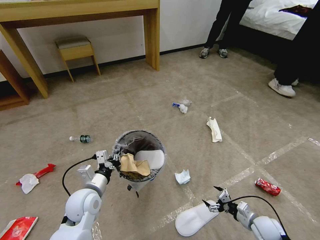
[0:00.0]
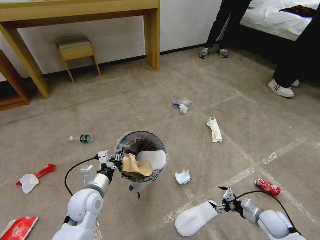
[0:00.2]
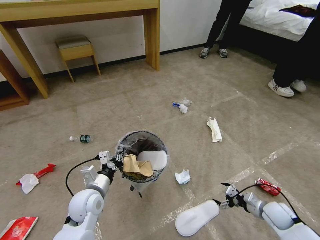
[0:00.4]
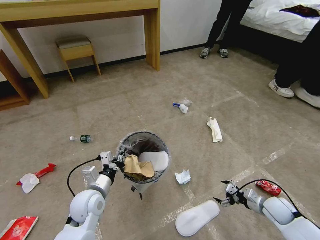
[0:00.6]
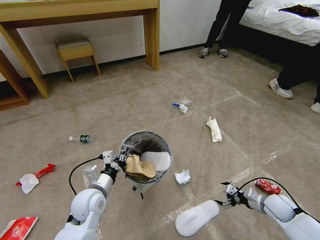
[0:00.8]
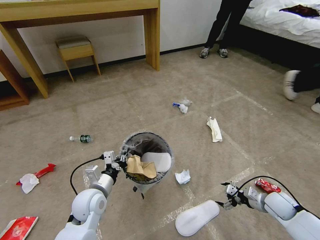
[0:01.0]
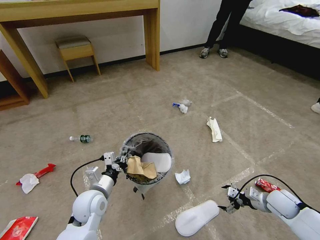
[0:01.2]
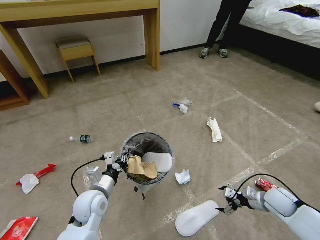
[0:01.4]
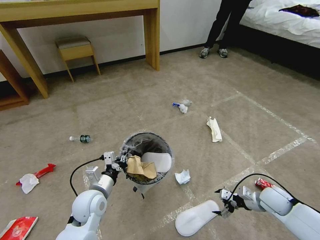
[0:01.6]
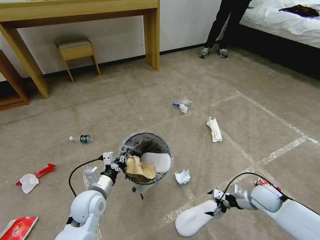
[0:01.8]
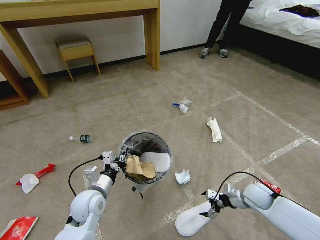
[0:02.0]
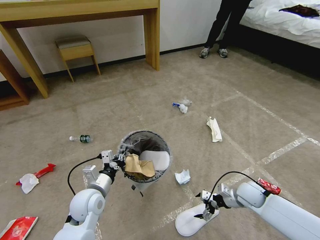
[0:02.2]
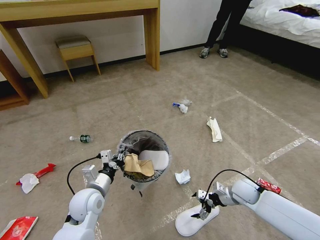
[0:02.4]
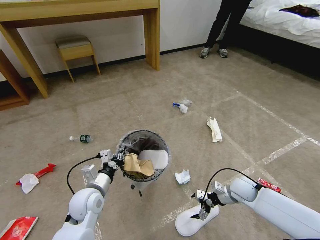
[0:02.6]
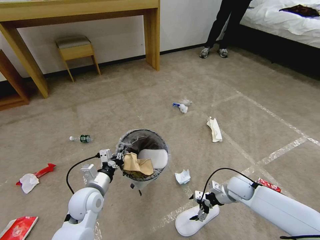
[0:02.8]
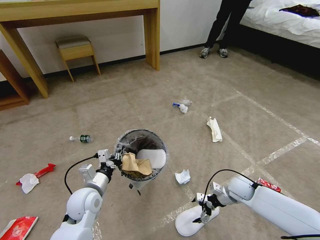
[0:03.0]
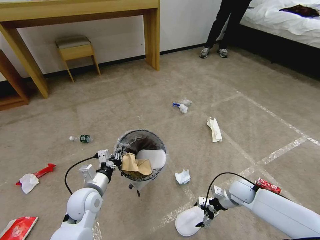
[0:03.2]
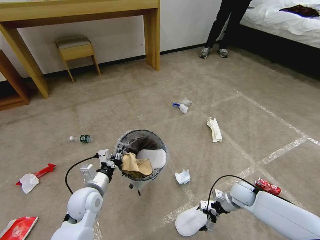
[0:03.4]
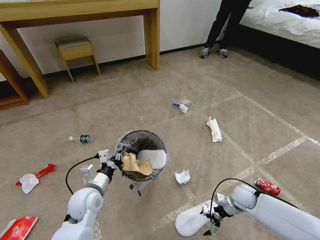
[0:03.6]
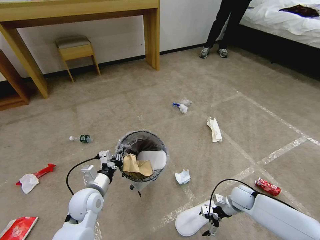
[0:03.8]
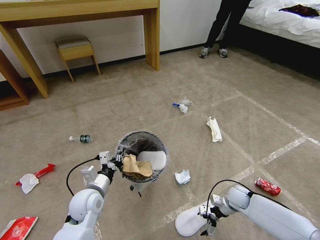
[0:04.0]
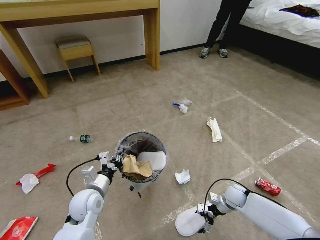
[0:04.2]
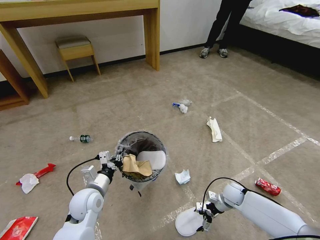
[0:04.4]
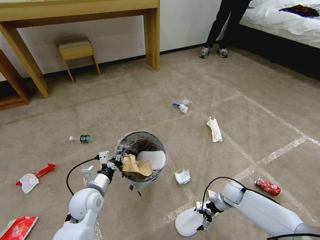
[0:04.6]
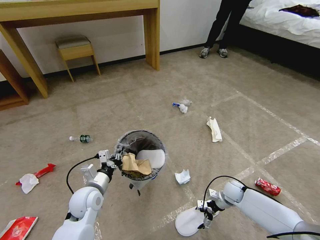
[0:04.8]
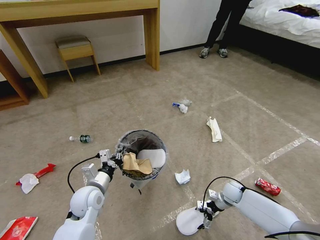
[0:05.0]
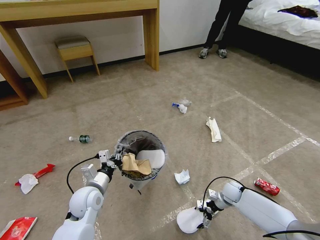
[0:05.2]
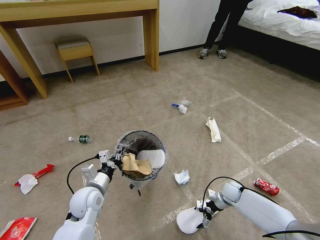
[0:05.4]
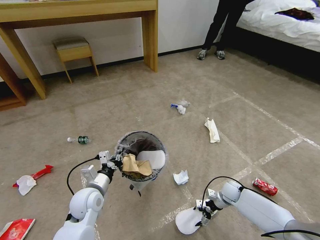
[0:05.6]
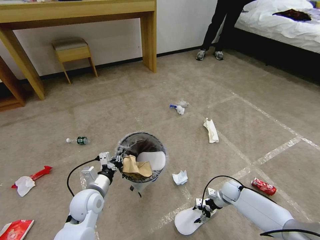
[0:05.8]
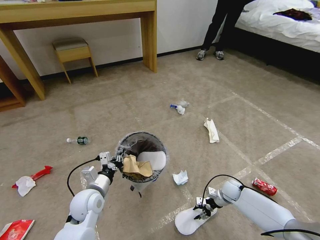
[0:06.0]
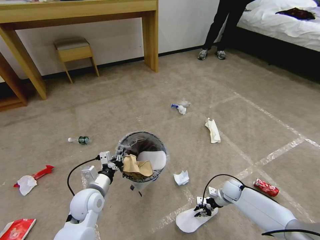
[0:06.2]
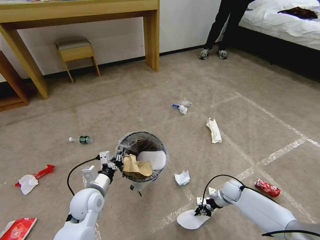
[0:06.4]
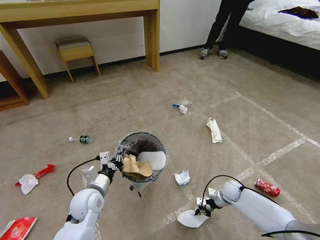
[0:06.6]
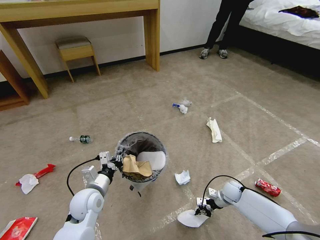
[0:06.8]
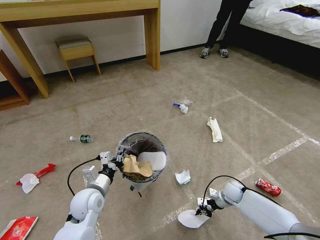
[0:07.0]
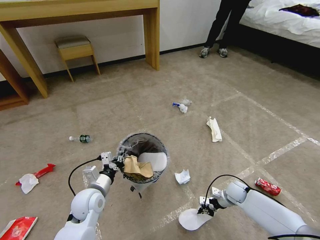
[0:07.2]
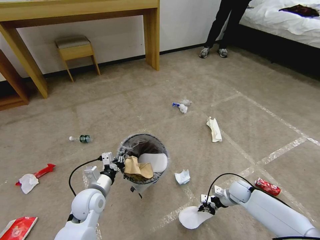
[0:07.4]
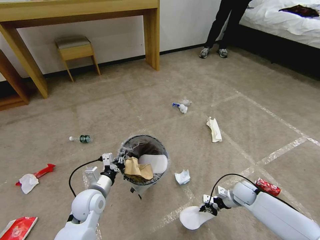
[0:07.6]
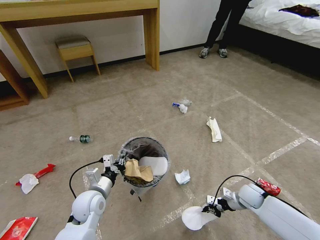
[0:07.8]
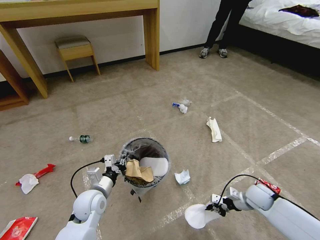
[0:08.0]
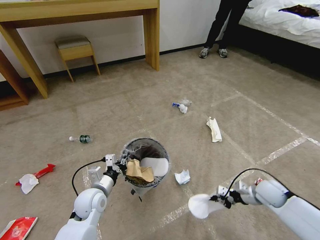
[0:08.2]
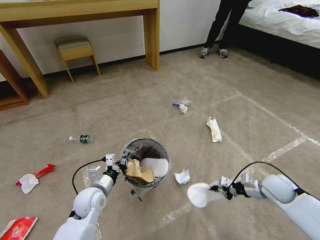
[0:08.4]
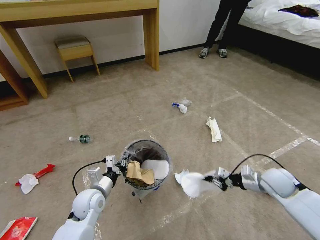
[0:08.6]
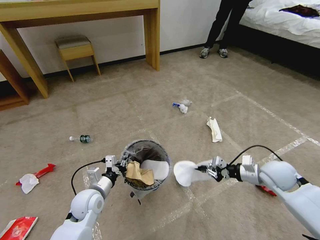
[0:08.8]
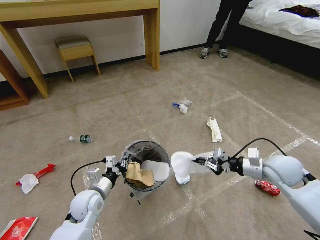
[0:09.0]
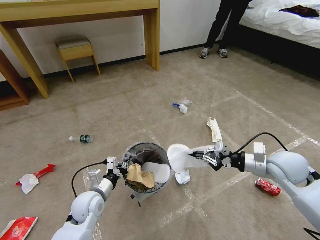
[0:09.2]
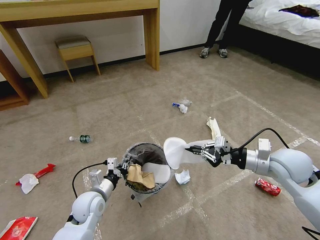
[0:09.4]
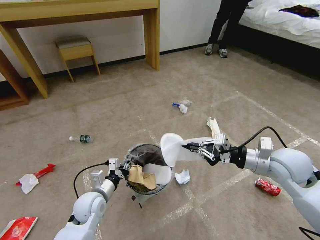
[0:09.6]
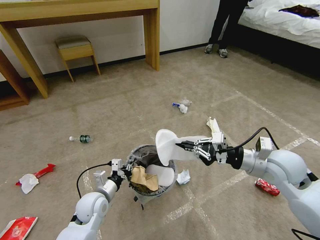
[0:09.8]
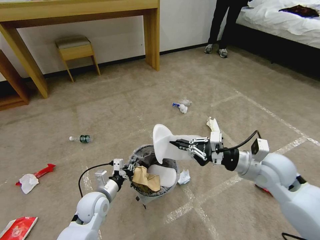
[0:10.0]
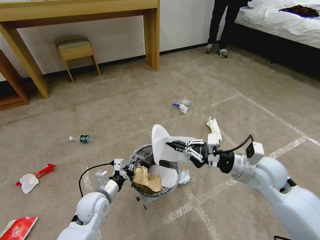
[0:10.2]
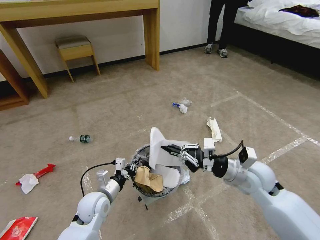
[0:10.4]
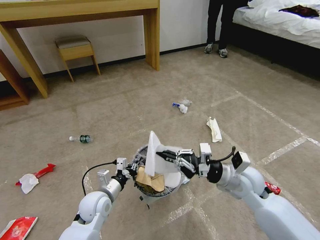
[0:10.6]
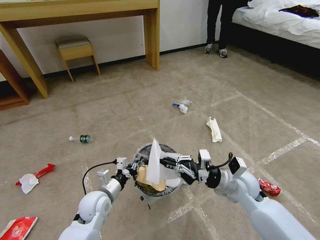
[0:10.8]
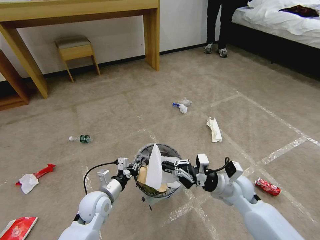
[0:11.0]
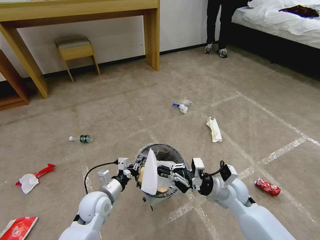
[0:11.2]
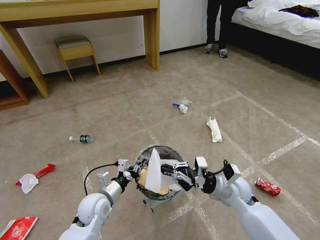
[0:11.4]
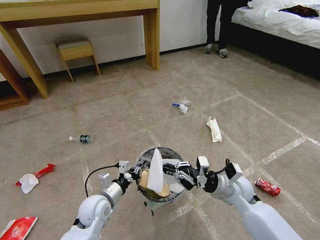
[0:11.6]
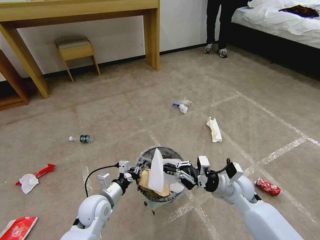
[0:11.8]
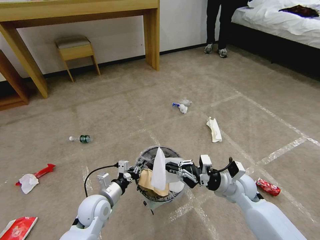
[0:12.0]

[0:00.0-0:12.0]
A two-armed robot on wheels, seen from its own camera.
Task of the whole recording: Pick up the trash bin and place the garbage on the floor into it.
0:00.0 to 0:01.6: The right gripper shifts roughly 10 cm upward and forward.
0:01.6 to 0:03.0: The right gripper goes some 10 cm to the left and forward.
0:03.0 to 0:04.4: The right gripper goes approximately 5 cm downward.
0:04.4 to 0:06.0: The right gripper closes.
0:06.0 to 0:07.6: The right gripper shifts approximately 5 cm upward, and closes.
0:07.6 to 0:09.0: The right gripper is displaced upward by some 25 cm.
0:09.0 to 0:10.4: The right gripper travels to the left by approximately 10 cm.
0:10.4 to 0:12.0: The right gripper shifts approximately 10 cm downward.

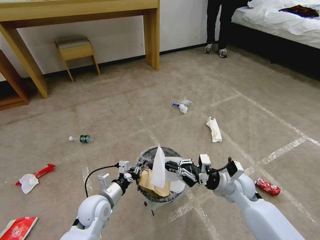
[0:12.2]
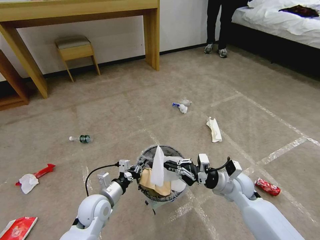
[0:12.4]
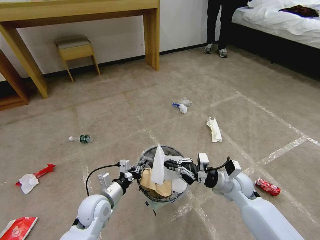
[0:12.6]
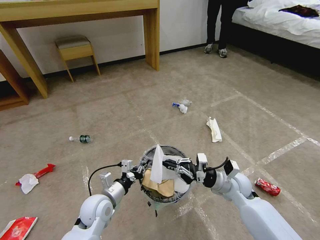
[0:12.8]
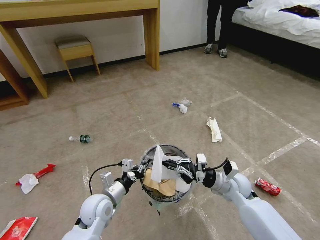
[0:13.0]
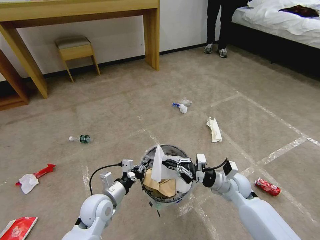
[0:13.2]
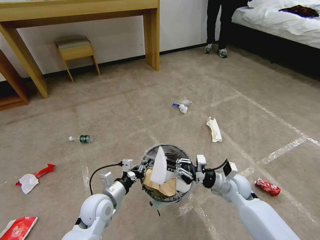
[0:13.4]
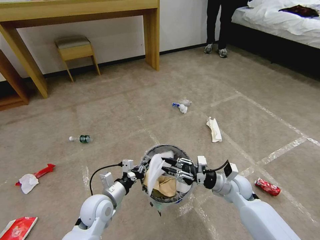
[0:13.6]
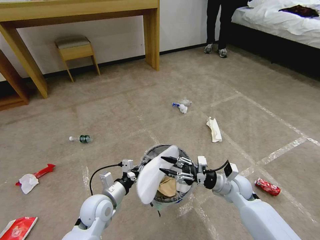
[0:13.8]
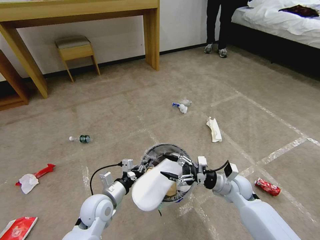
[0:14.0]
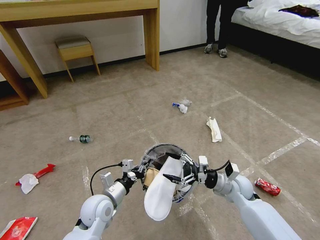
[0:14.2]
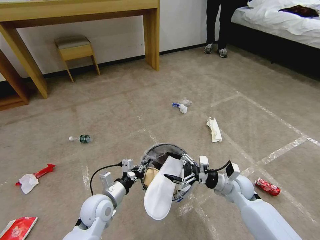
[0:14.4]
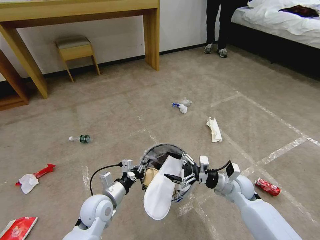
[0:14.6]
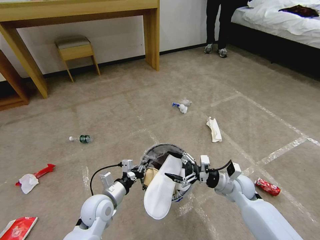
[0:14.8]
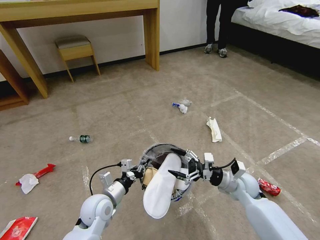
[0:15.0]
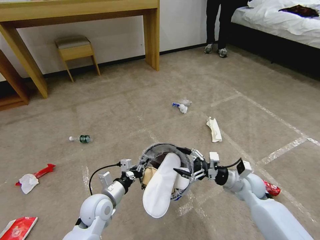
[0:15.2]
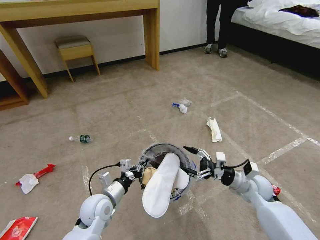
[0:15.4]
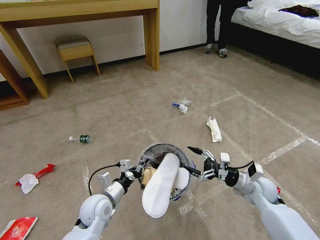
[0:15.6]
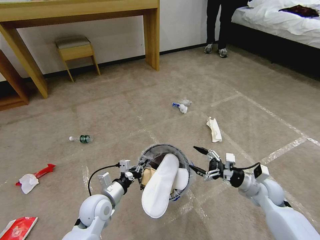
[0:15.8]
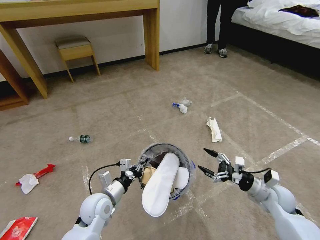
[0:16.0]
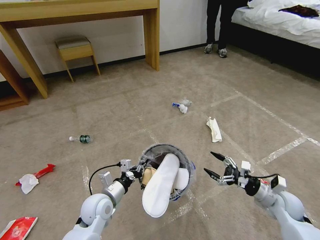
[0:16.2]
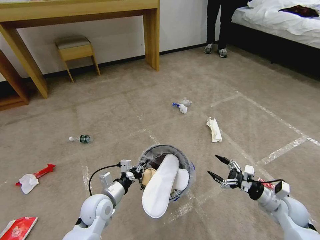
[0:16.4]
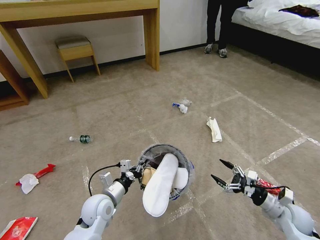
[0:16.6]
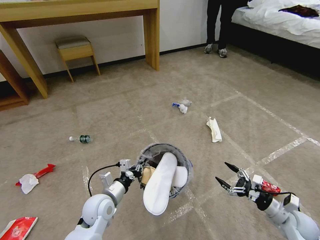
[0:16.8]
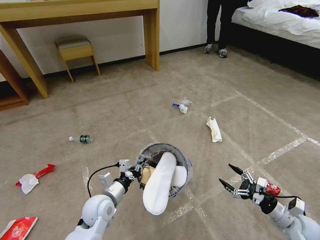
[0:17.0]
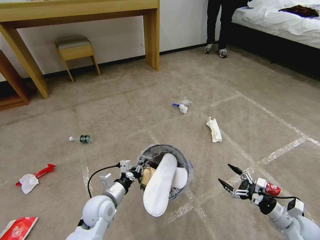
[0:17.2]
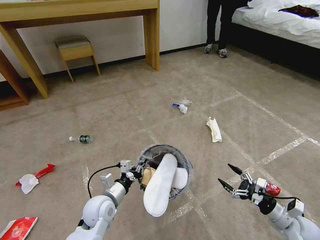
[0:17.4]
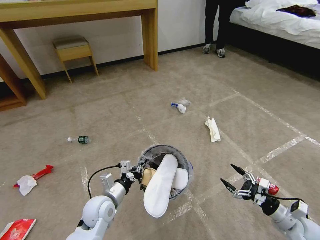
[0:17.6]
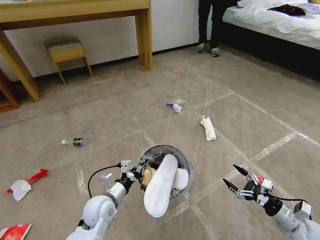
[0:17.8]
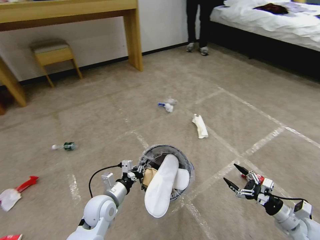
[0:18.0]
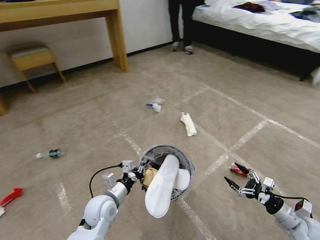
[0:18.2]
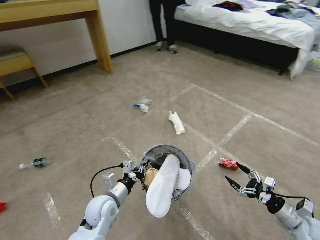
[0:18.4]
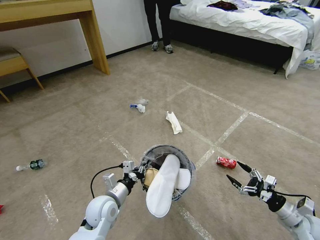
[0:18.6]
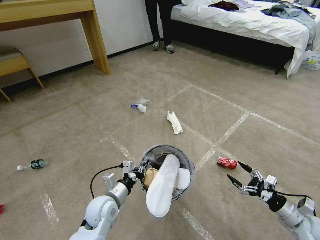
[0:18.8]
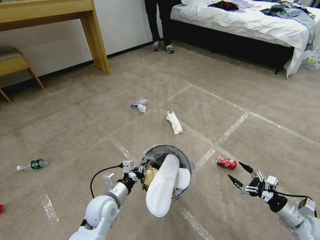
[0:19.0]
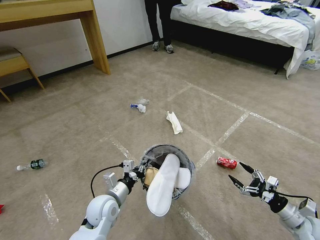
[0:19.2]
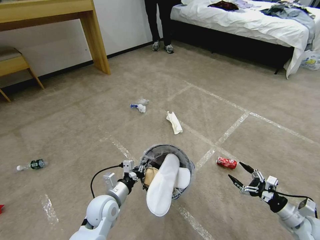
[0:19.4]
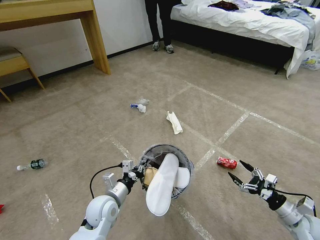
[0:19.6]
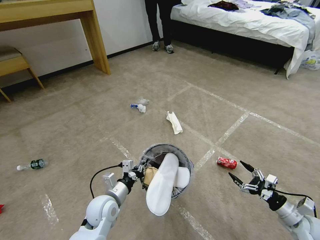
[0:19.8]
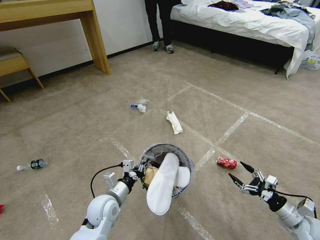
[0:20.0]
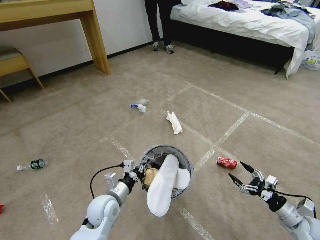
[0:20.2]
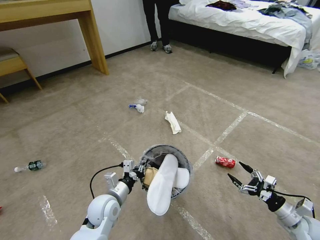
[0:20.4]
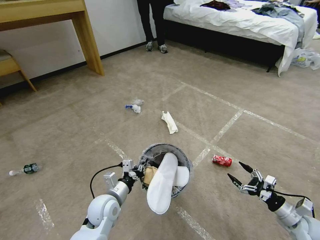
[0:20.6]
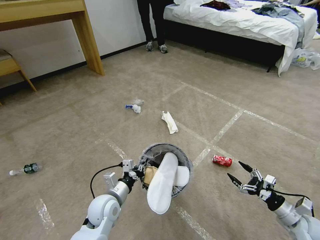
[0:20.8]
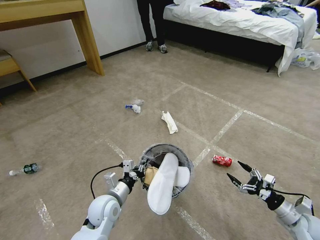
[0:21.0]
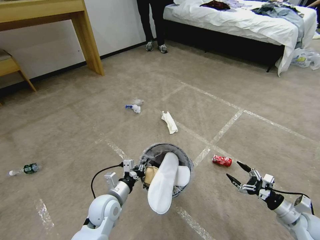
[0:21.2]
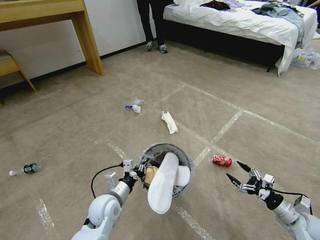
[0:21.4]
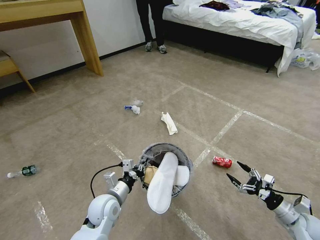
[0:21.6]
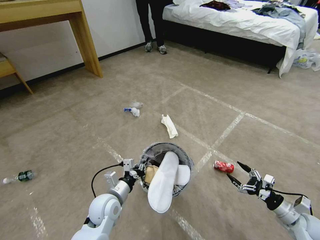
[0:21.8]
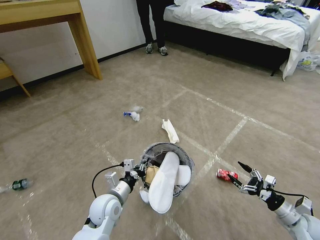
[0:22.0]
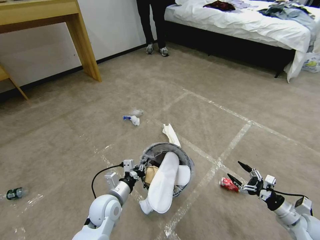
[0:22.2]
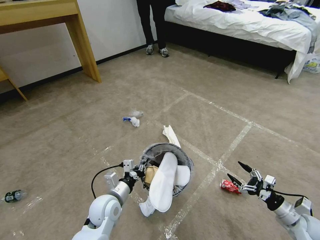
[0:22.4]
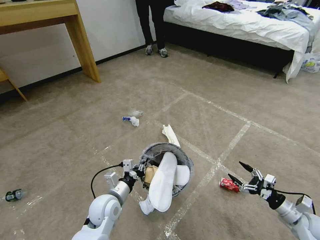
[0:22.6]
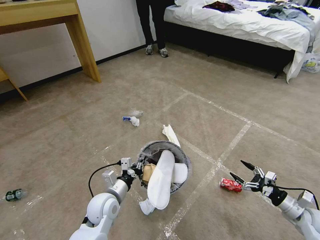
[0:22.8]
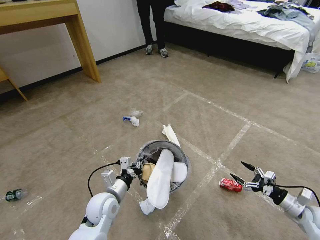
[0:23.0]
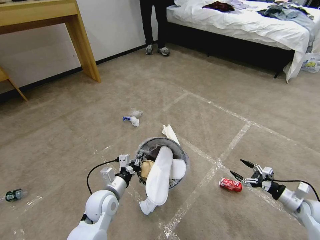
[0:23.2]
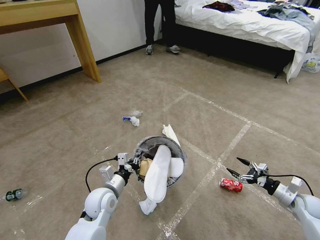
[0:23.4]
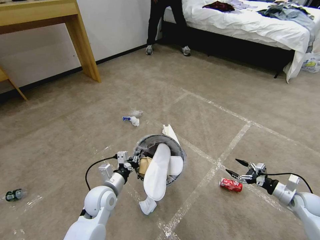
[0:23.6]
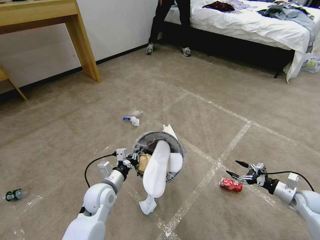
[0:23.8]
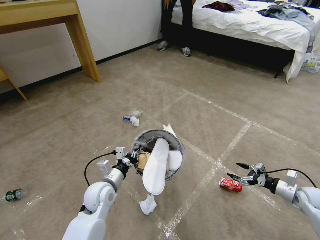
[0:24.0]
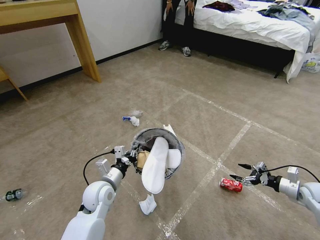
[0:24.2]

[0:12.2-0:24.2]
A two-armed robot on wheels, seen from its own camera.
Task of the whole recording: Pick up the trash bin and place the garbage on the floor into it.
0:12.2 to 0:13.8: The right gripper opens up.
0:13.8 to 0:15.2: The right gripper opens its fingers.
0:15.2 to 0:16.6: The right gripper shifts roughly 15 cm to the right and backward.
0:16.6 to 0:18.2: The right gripper moves roughly 5 cm.
0:19.8 to 0:21.2: Neither gripper changes place.
0:21.2 to 0:22.6: The grippers make only small movements.
0:22.6 to 0:24.2: The right gripper moves forward and to the right, roughly 10 cm.
